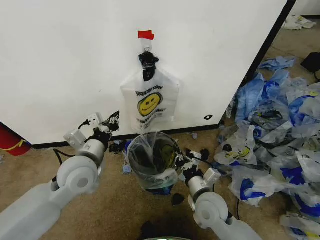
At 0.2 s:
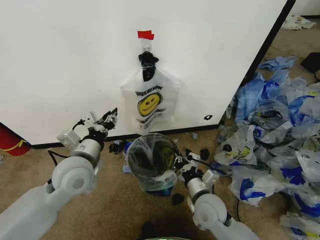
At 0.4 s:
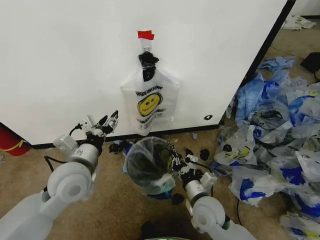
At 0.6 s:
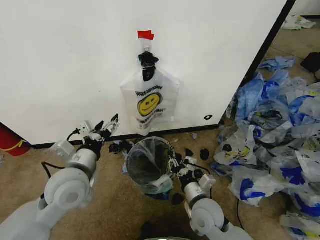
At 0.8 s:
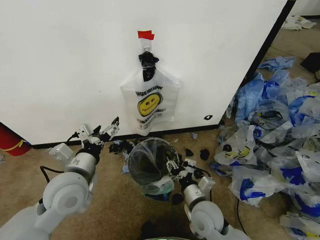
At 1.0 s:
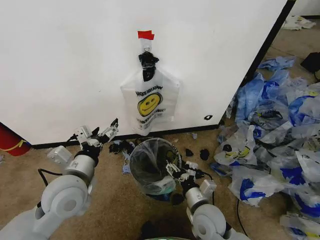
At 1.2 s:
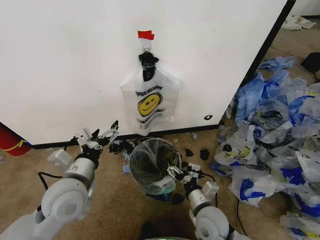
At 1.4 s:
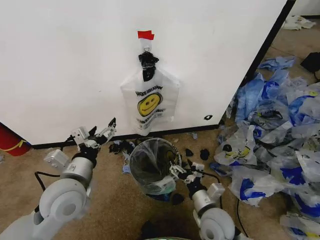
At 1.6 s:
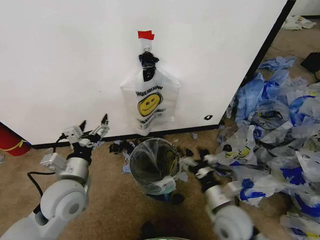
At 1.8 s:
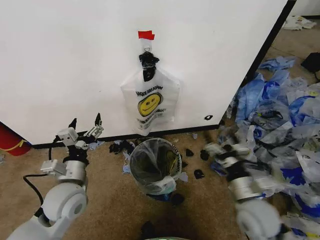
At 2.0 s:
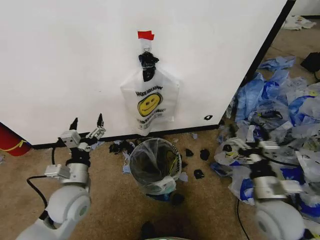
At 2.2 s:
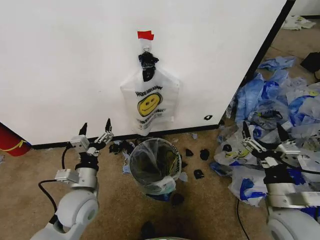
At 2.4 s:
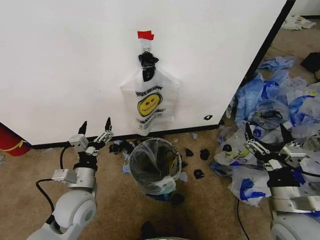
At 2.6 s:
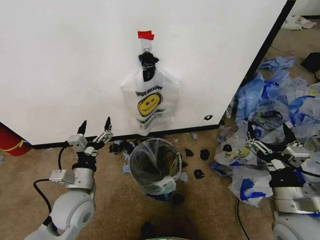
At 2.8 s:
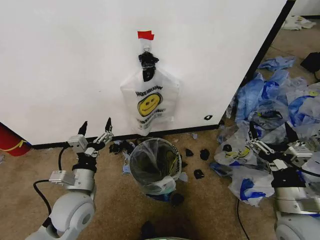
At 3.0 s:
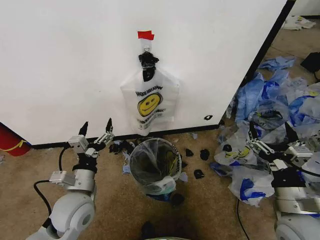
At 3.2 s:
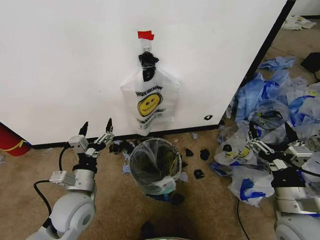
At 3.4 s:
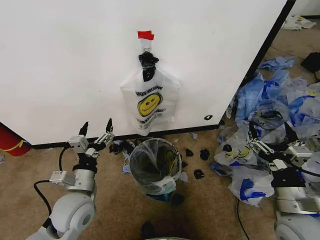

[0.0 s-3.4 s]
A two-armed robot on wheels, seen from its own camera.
Task of the whole recording: Pick up the garbage bag from the wall and place it over the trash bin.
0.0 to 1.6 s: The right gripper is displaced to the right by some 5 cm, and opens up. Meanwhile the left gripper is displaced backward by roughly 5 cm, and opens.
1.6 to 3.4 s: The right gripper goes approximately 15 cm to the right and upward.

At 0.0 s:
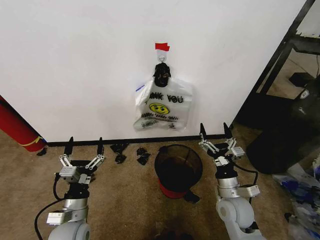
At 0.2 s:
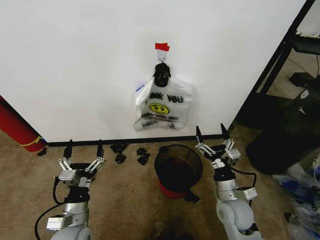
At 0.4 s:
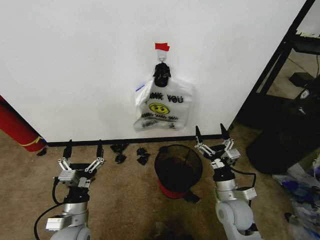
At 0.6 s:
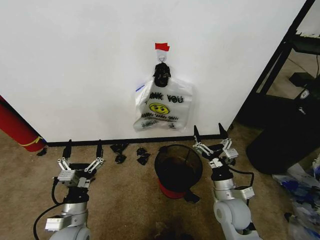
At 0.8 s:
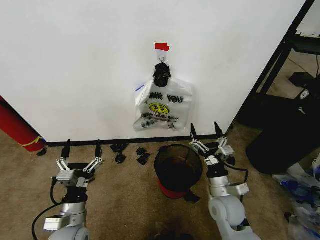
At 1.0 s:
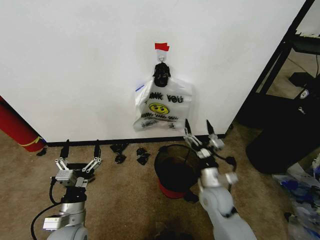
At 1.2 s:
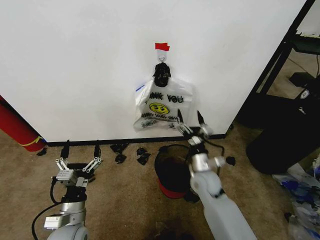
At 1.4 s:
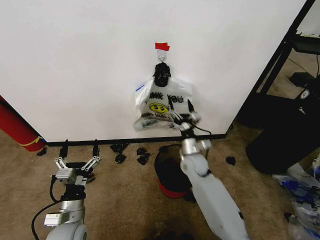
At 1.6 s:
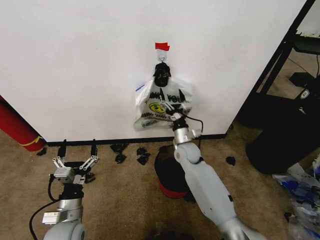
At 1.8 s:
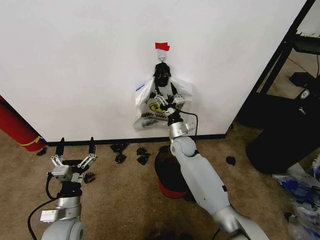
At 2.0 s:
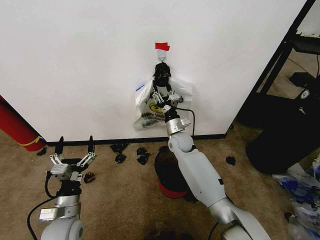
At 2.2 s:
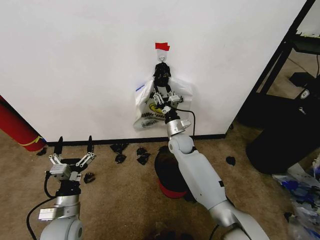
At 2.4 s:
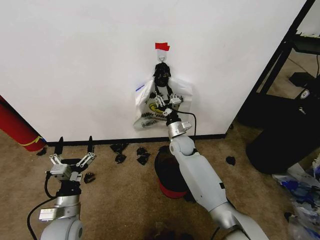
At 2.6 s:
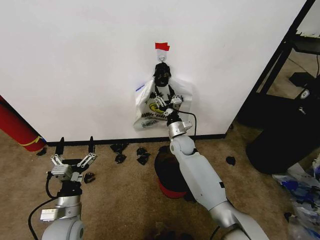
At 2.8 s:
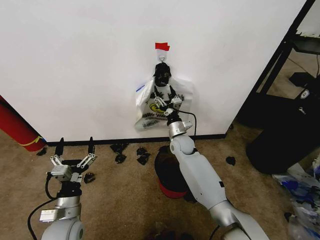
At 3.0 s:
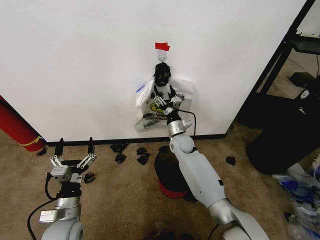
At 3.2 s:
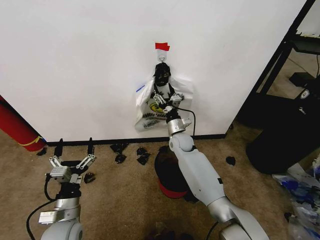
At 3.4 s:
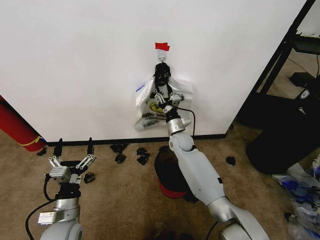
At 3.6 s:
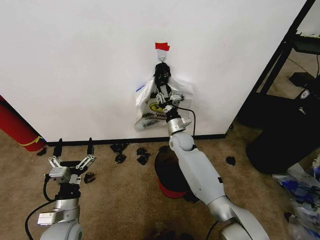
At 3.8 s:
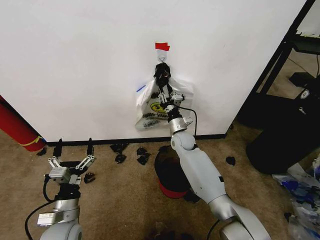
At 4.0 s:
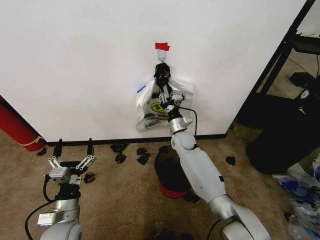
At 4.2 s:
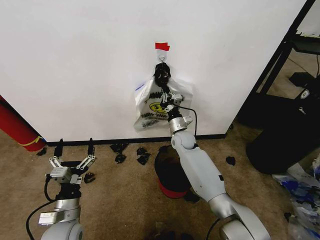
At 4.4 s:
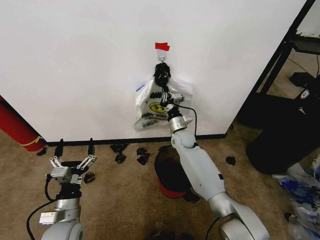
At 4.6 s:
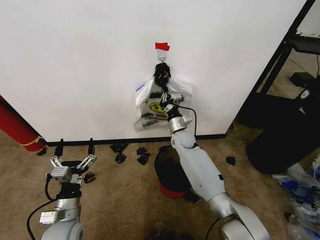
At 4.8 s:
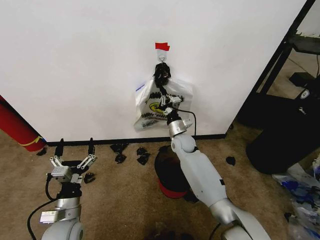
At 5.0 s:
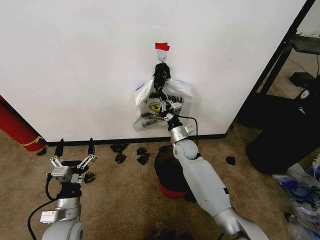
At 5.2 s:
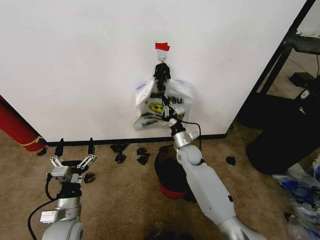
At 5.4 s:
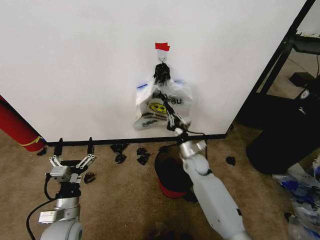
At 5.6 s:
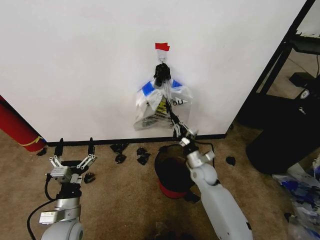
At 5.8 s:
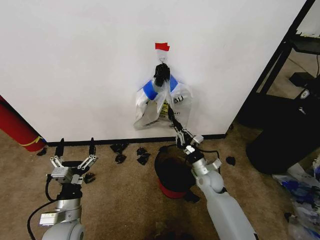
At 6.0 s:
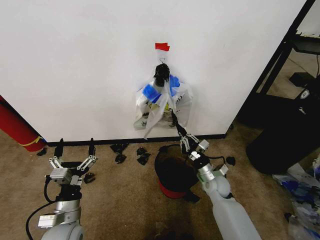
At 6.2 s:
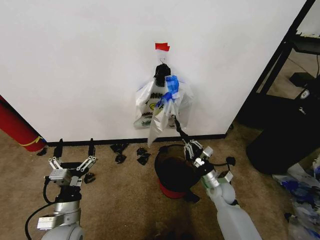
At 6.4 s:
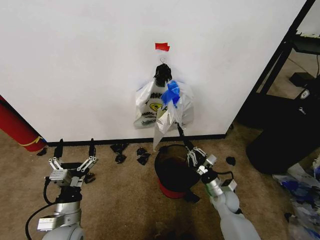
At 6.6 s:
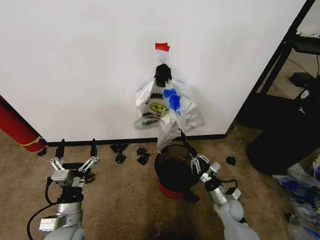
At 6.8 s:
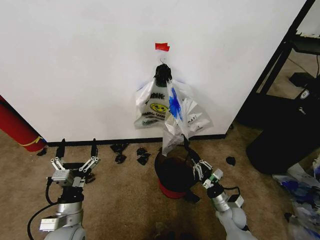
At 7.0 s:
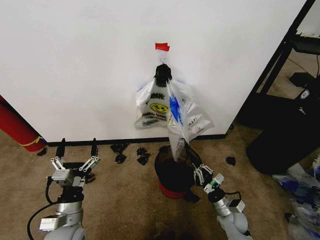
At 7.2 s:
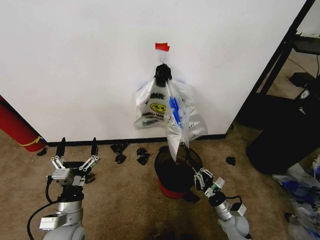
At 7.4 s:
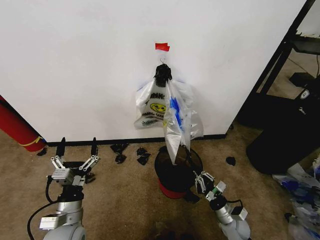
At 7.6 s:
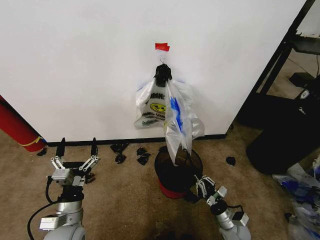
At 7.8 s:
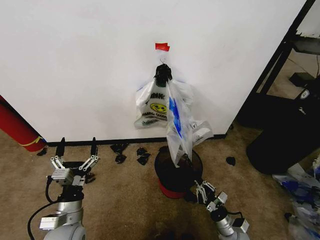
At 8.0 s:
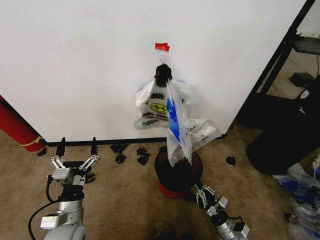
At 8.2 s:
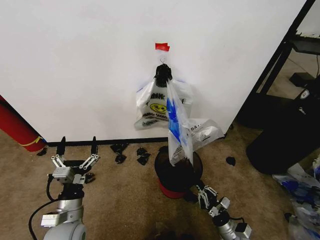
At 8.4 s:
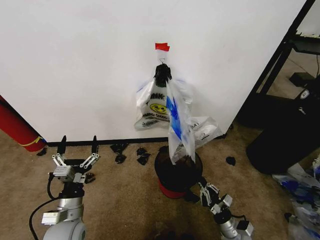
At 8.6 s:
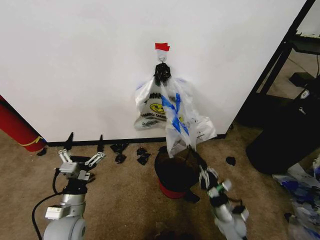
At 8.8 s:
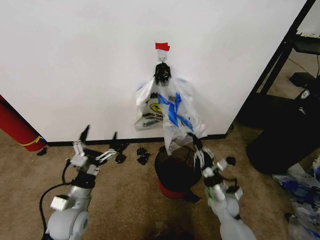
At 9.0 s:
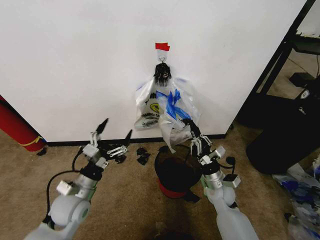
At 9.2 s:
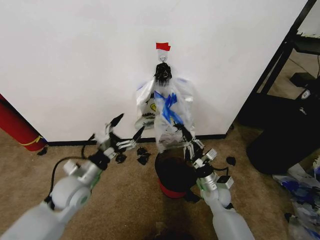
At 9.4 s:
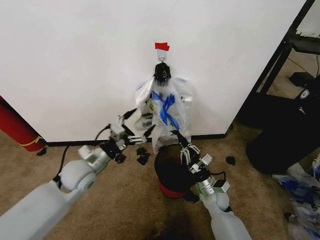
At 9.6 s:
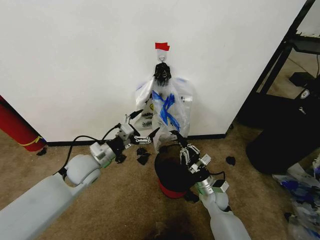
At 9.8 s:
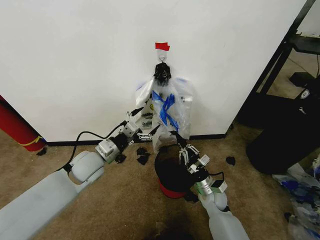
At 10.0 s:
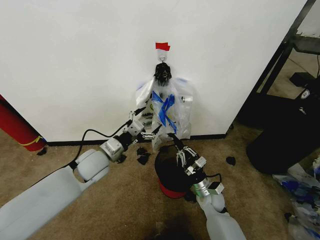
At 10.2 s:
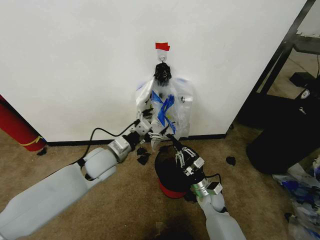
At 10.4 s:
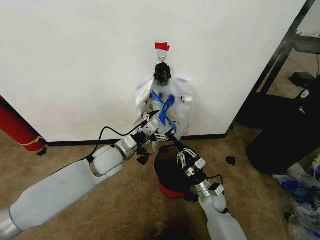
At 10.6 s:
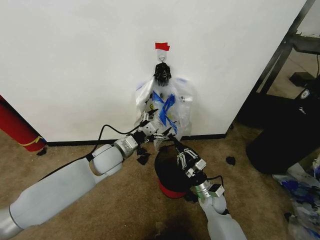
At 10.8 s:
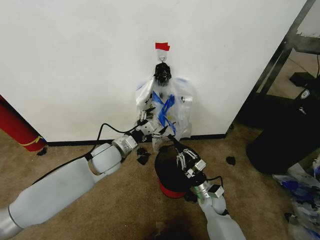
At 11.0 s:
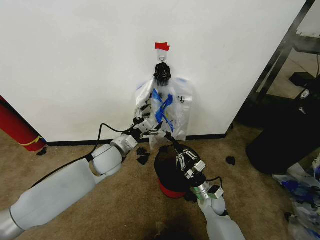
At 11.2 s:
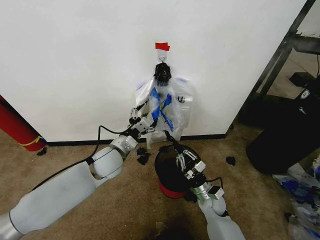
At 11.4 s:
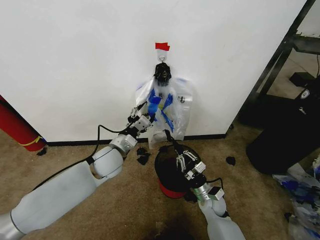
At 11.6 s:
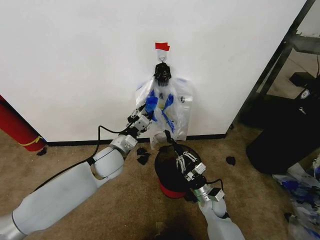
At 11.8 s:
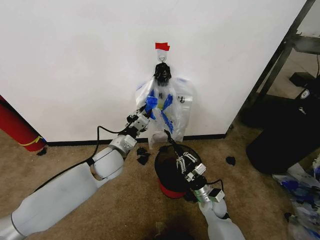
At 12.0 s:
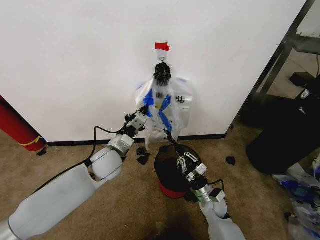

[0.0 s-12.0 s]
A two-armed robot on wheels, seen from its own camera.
Task of the whole recording: Pick up the garbage bag from the wall and place it over the trash bin.
1.6 to 3.0 s: The right gripper changes place by approximately 5 cm.
3.0 to 4.4 s: The right gripper closes up.
4.4 to 6.0 s: The right gripper travels backward, to the right and downward by approximately 20 cm.
6.0 to 7.6 s: The right gripper travels backward, downward and to the right by roughly 20 cm.
7.6 to 9.0 s: The right gripper travels upward, forward and to the left by some 20 cm; the left gripper shifts approximately 10 cm forward.
9.0 to 10.4 s: The right gripper is displaced downward by about 5 cm. Meanwhile the left gripper shifts approximately 15 cm forward, to the right and upward.
10.4 to 12.0 s: The left gripper closes its fingers.

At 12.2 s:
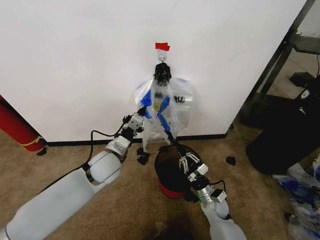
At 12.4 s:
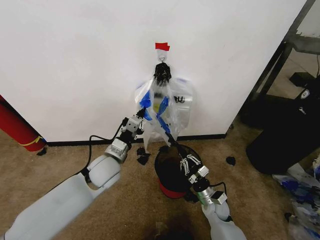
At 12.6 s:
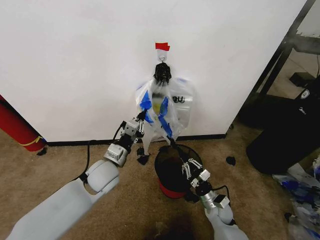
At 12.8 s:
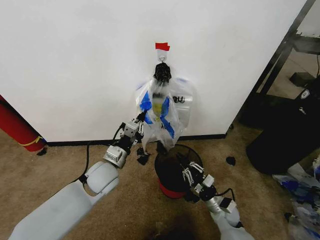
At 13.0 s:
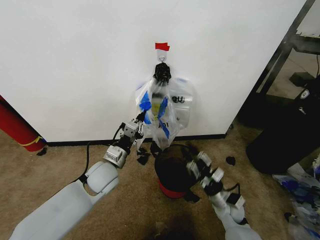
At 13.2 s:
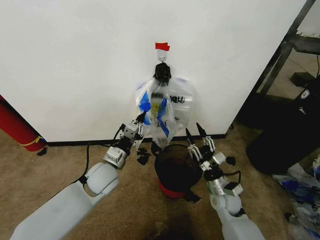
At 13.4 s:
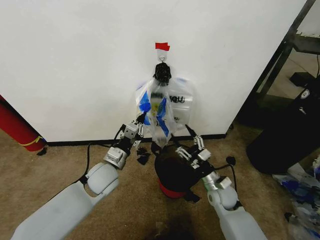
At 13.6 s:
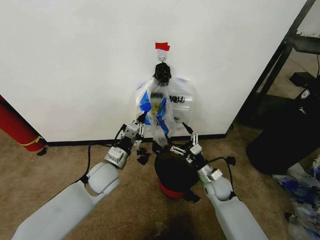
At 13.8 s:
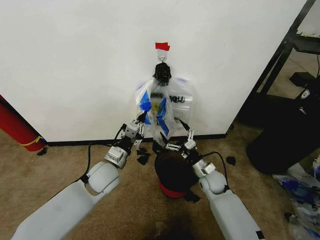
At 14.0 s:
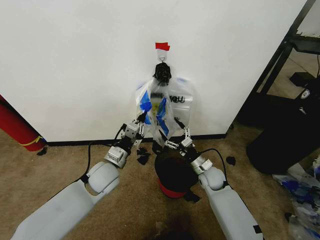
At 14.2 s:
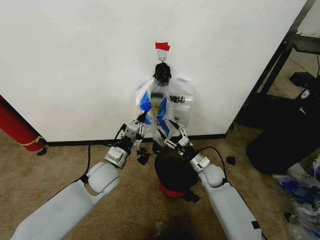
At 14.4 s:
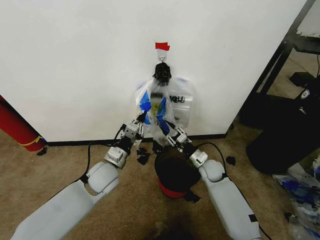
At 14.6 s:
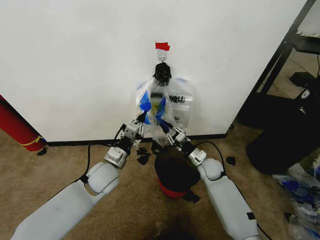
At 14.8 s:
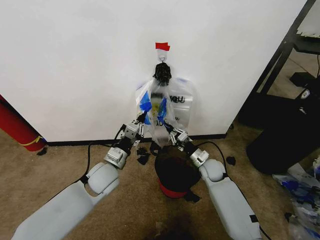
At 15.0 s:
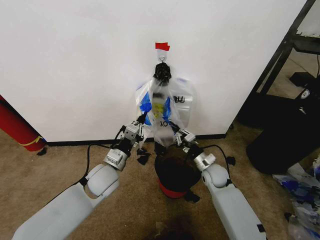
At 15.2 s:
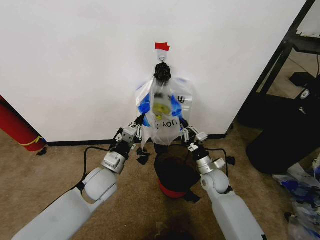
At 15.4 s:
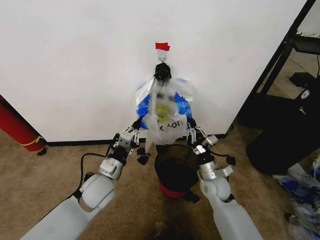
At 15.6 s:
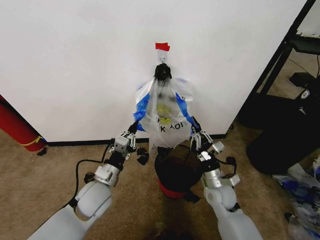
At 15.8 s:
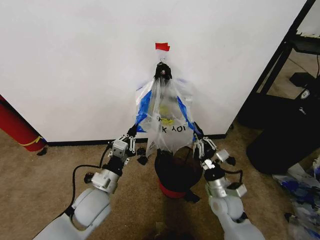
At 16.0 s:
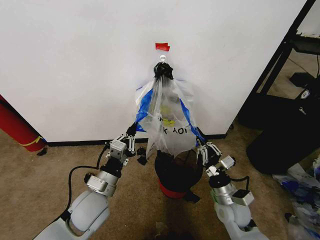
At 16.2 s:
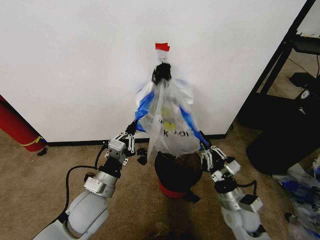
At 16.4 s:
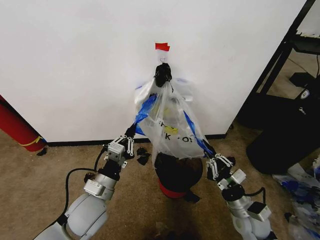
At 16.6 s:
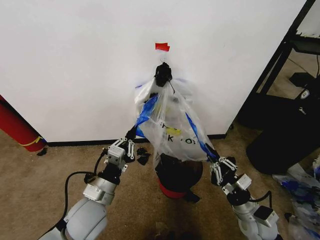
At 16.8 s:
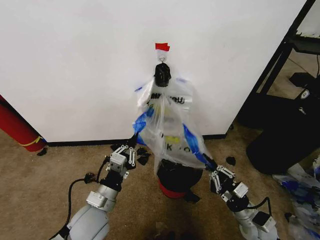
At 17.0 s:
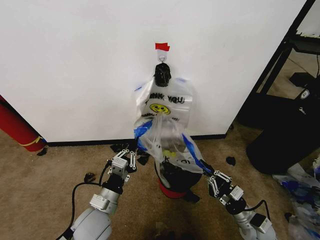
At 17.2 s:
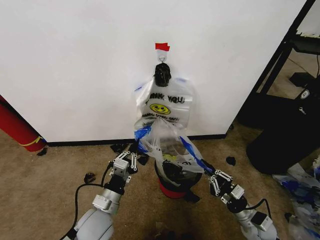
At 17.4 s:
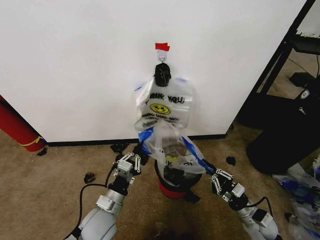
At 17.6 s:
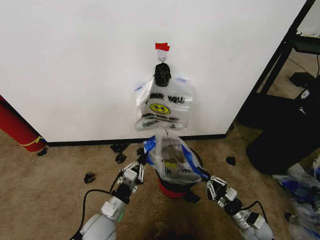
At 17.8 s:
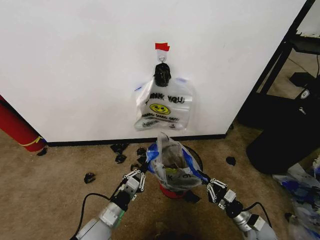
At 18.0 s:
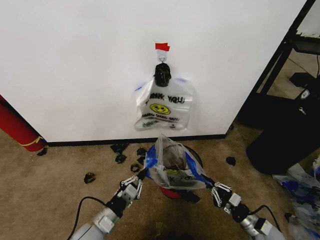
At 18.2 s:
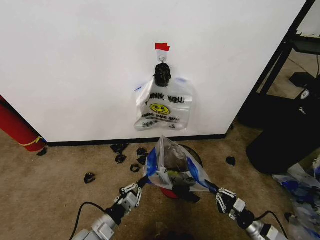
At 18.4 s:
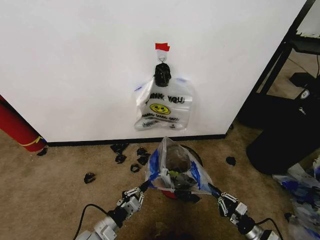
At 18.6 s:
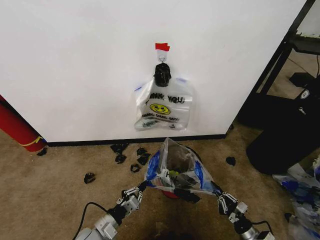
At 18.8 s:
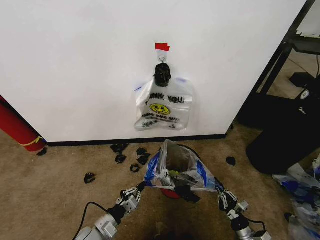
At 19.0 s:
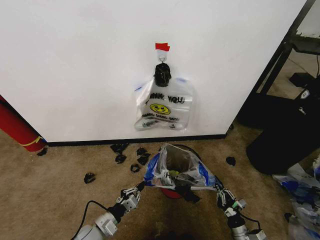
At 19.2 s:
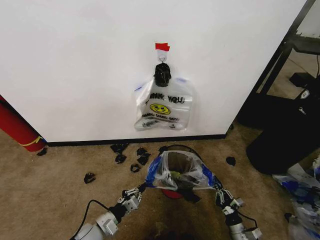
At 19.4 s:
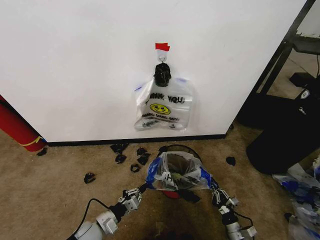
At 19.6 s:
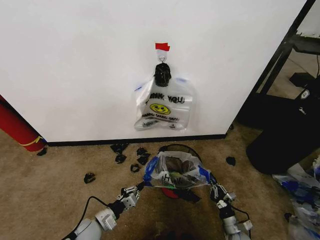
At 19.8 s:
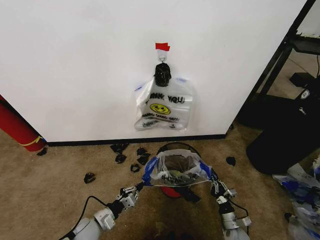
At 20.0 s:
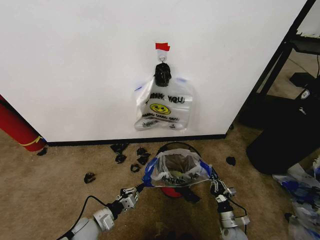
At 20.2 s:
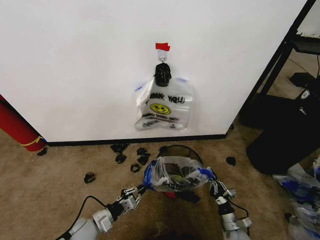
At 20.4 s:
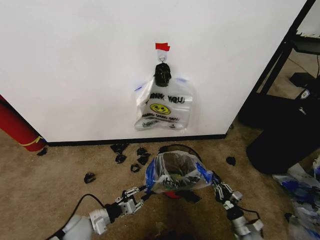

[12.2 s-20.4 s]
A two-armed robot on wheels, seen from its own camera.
Task of the whole recording: Pick up the garbage bag from the wall and place it over the trash bin.
12.2 to 13.8 s: The right gripper heads forward and upward, covering approximately 10 cm, and opens up.
13.8 to 15.4 s: The right gripper shifts by about 5 cm, and closes.
15.4 to 17.2 s: The right gripper shifts roughly 20 cm to the right, backward and downward; the left gripper shifts some 10 cm backward.
17.2 to 18.8 s: The right gripper goes roughly 15 cm downward and backward; the left gripper is displaced downward and to the left by approximately 15 cm.
18.8 to 20.4 s: The left gripper changes place by some 5 cm.
